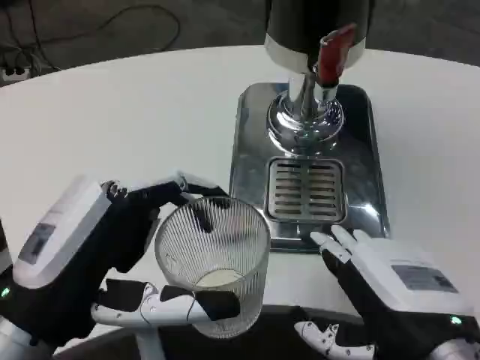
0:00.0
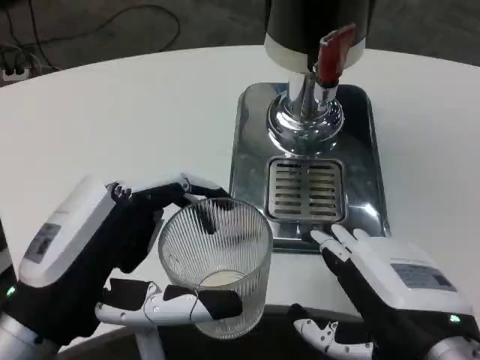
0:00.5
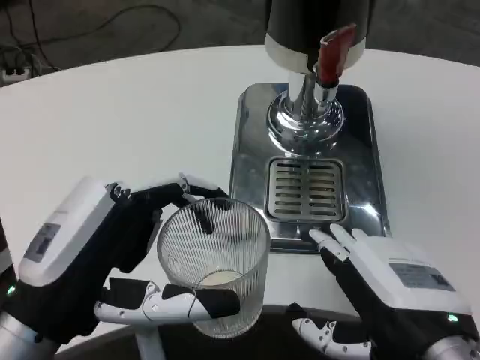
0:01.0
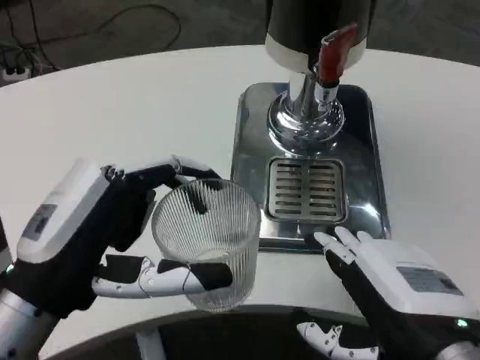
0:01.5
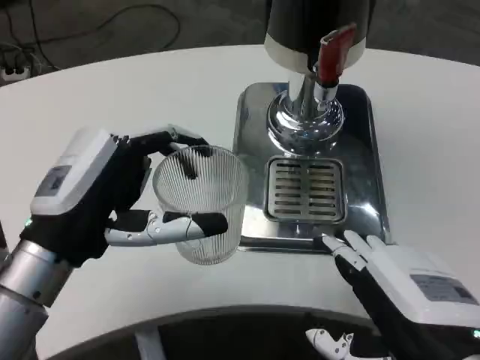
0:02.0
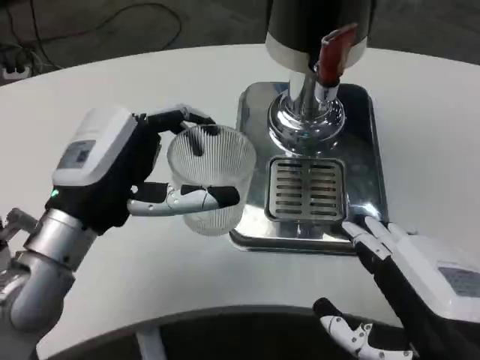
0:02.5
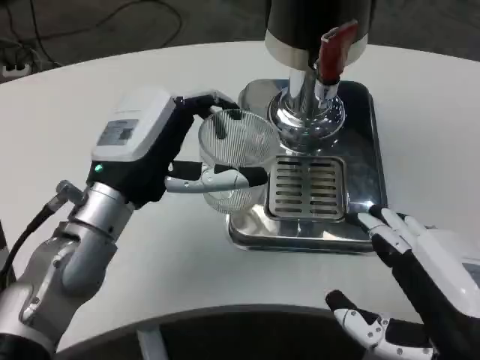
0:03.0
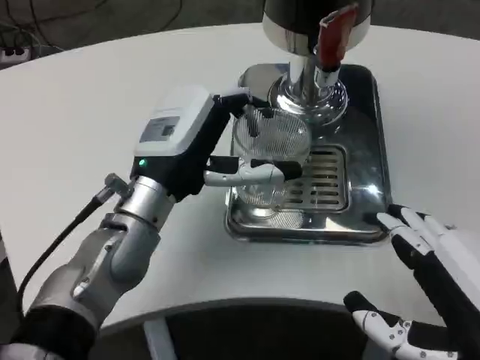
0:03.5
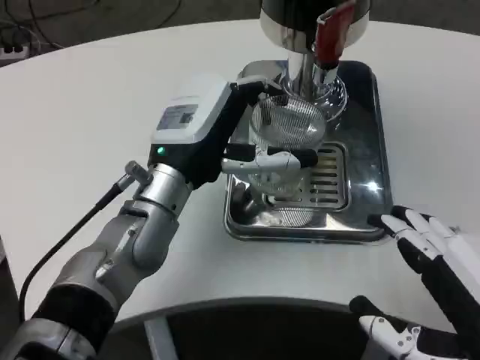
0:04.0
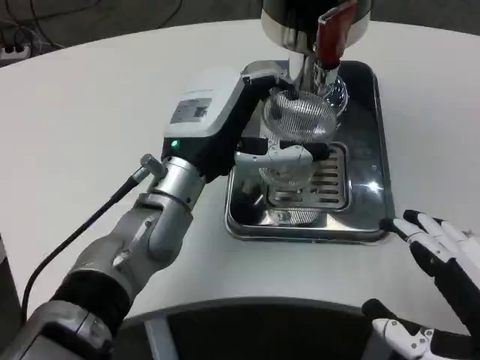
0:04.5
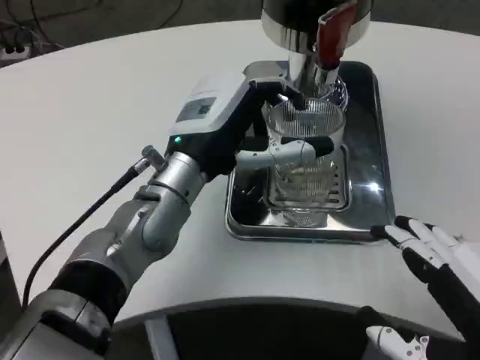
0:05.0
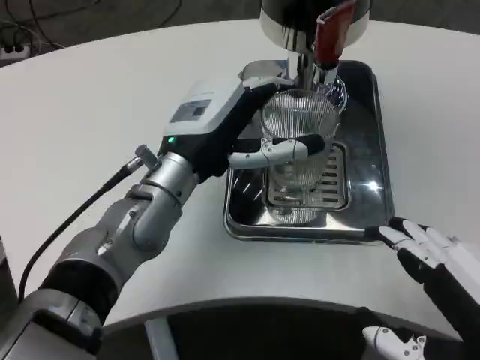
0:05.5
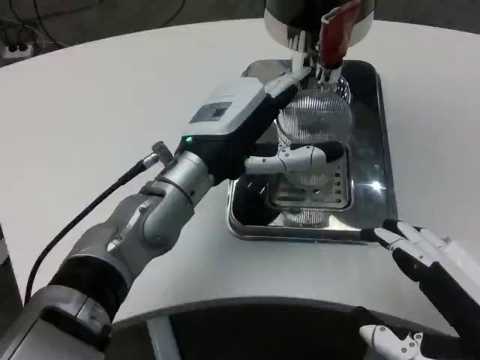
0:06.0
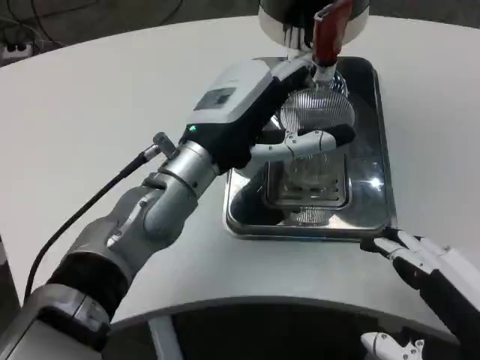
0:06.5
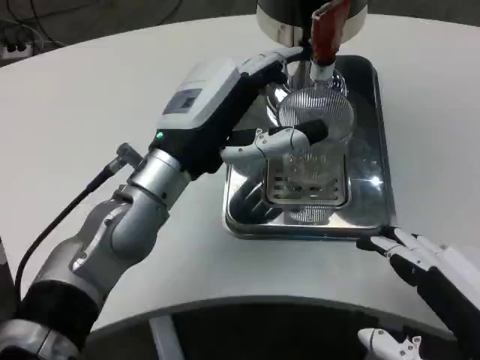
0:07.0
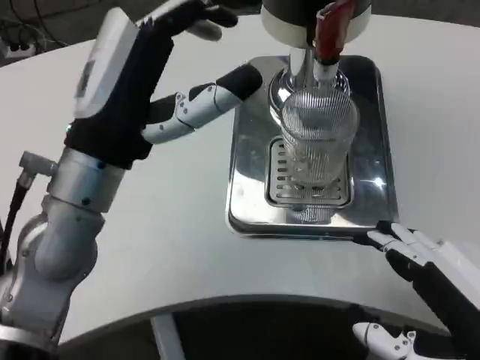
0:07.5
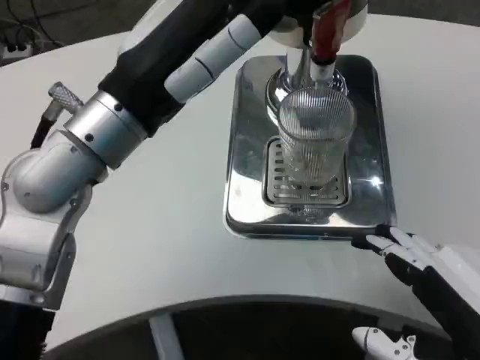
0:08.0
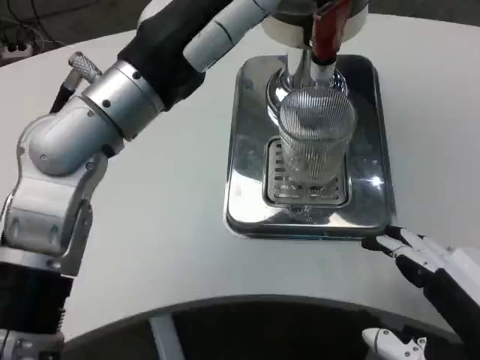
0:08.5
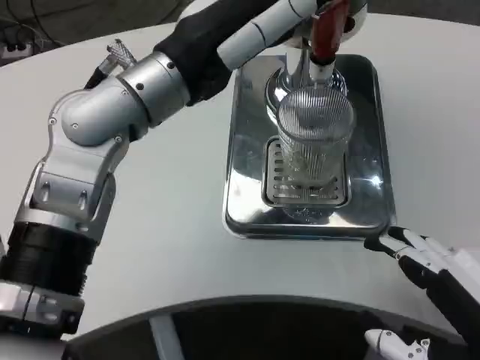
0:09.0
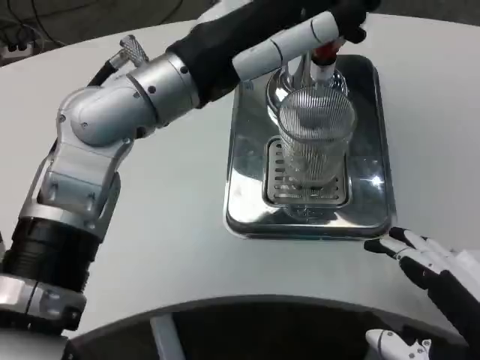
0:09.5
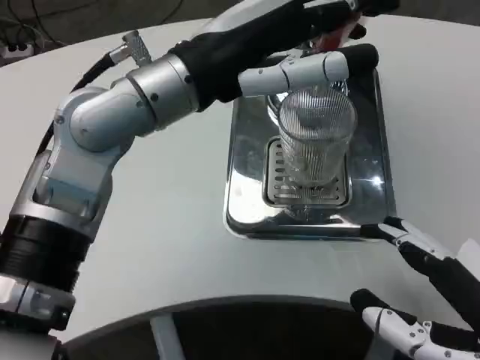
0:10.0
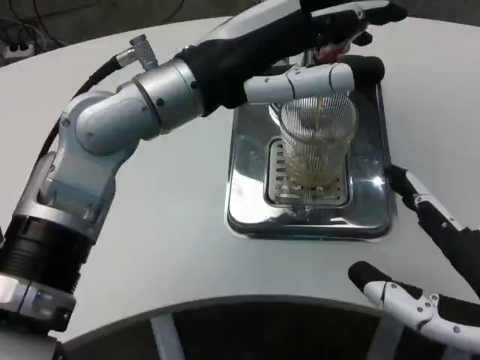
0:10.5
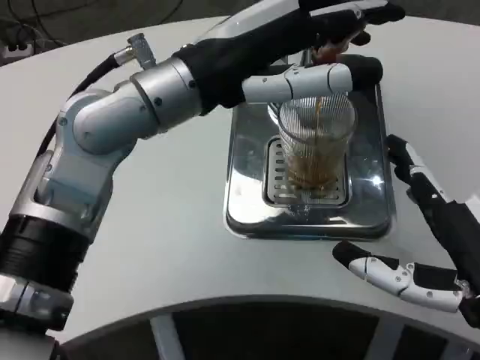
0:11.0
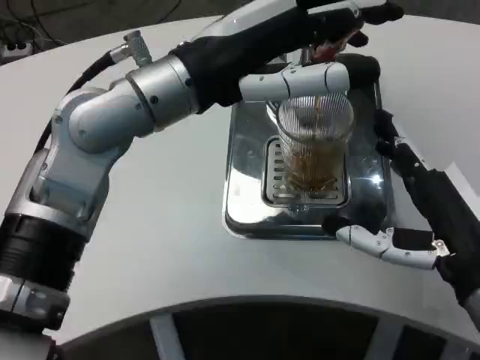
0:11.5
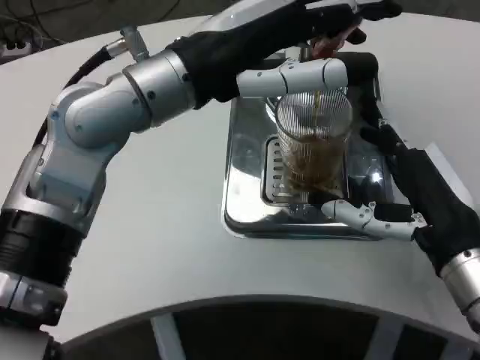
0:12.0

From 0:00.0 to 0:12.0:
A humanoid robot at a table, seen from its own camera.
Task of the whole recording: Grasp the cup under the faucet to collect the drink, then remove the cup.
From 0:00.0 to 0:02.0: The left hand heads forward, covering some 5 cm.
From 0:02.0 to 0:04.0: The left hand moves forward and to the right, approximately 15 cm.
From 0:06.0 to 0:08.0: The left hand heads upward, backward and to the left, covering some 10 cm.
From 0:08.0 to 0:10.0: The left hand ends up roughly 5 cm from where it was.
From 0:10.0 to 0:12.0: The right hand travels forward by some 15 cm.

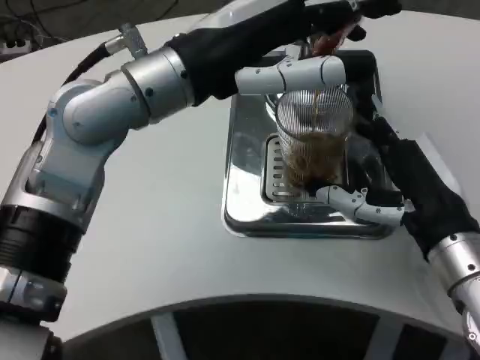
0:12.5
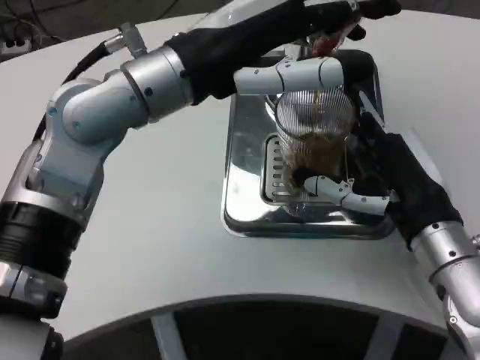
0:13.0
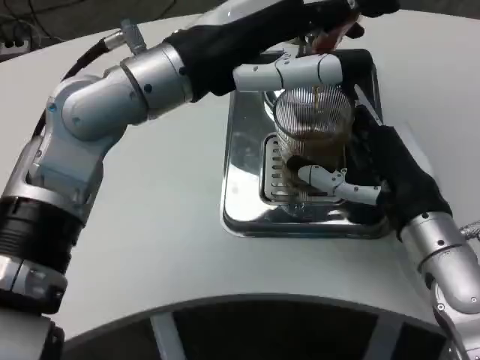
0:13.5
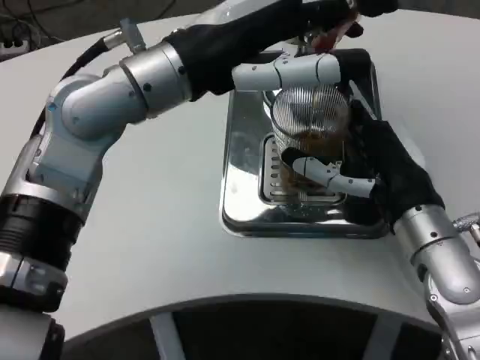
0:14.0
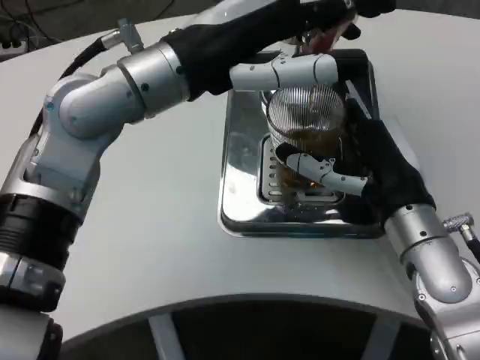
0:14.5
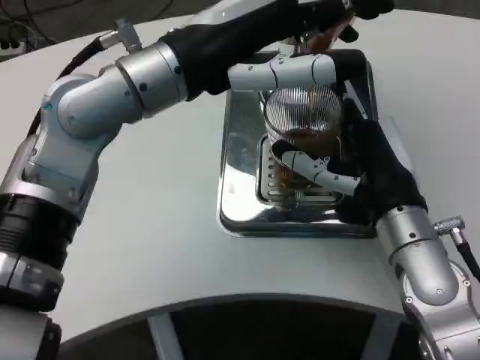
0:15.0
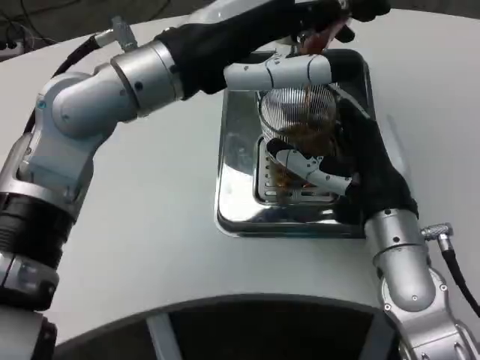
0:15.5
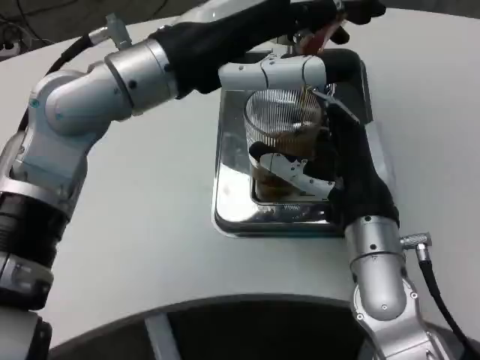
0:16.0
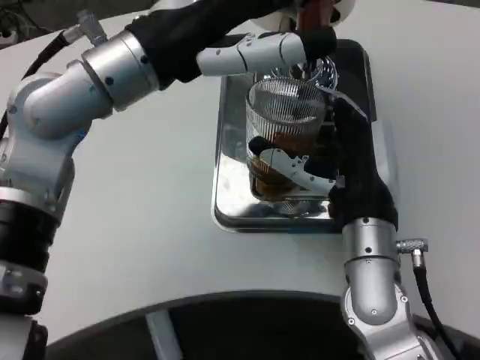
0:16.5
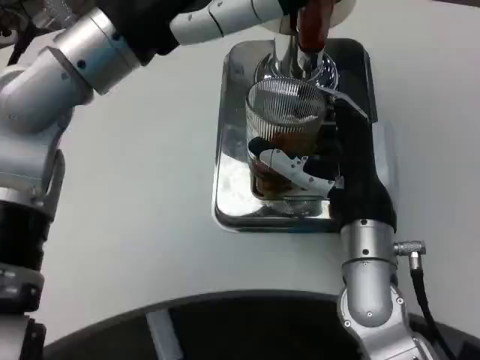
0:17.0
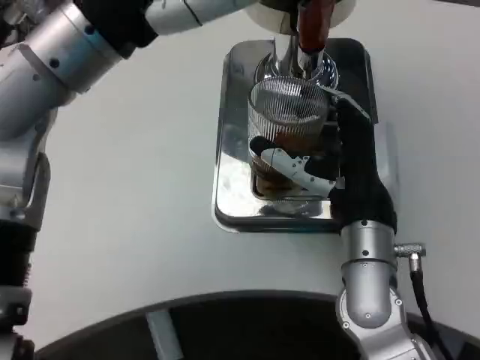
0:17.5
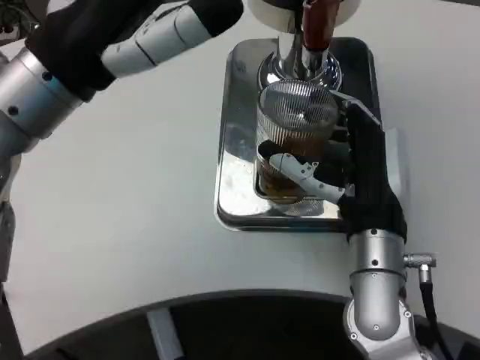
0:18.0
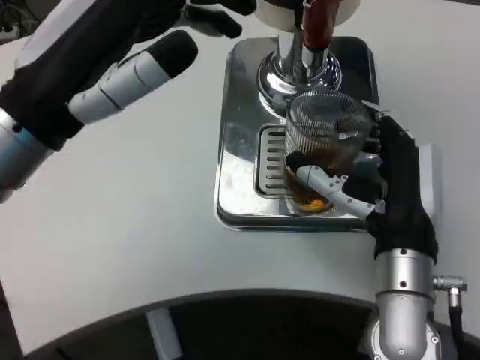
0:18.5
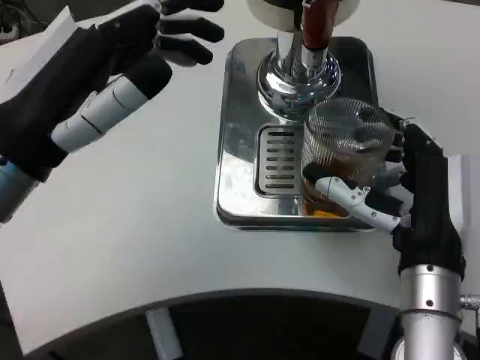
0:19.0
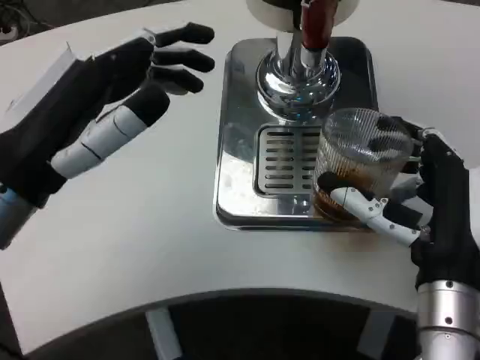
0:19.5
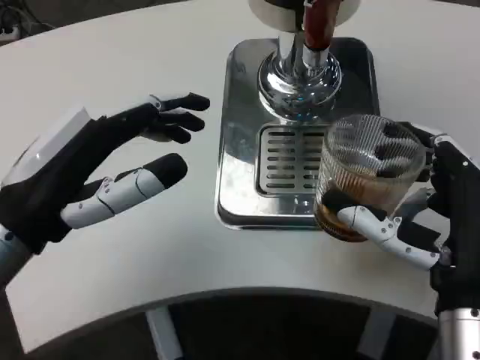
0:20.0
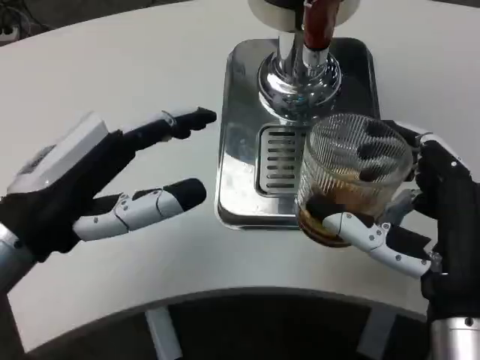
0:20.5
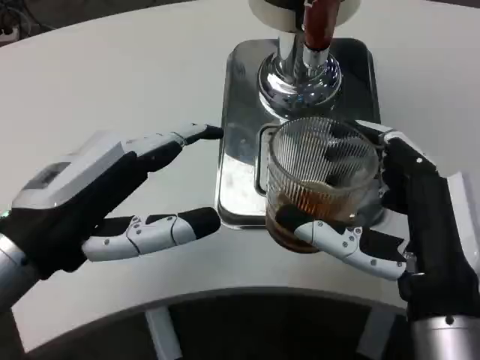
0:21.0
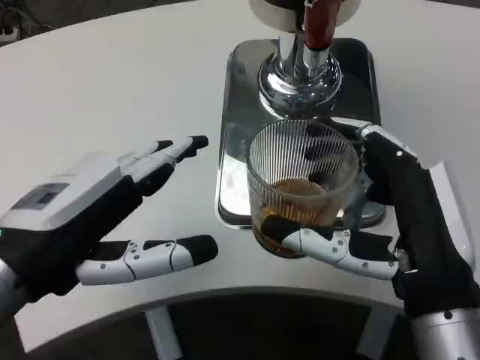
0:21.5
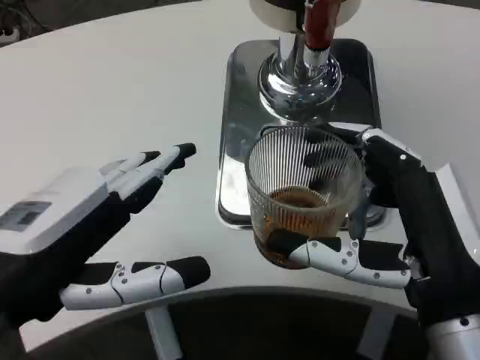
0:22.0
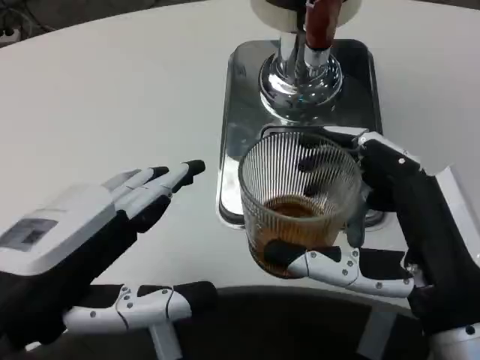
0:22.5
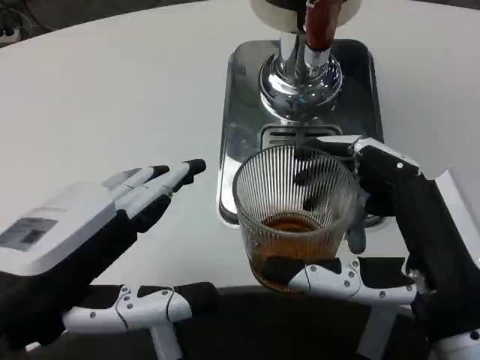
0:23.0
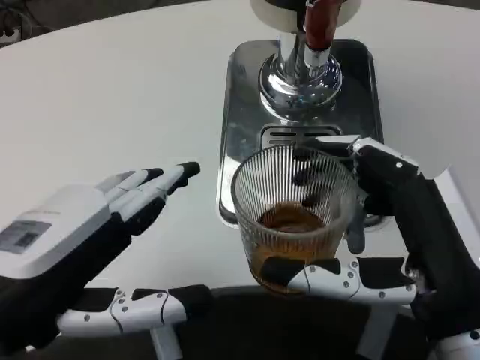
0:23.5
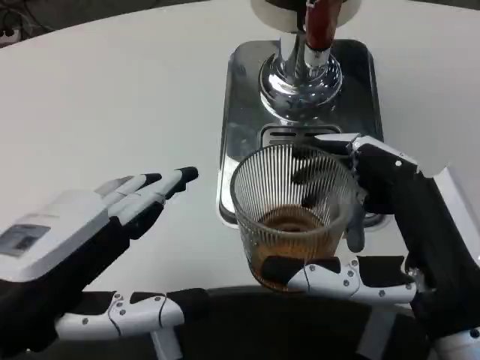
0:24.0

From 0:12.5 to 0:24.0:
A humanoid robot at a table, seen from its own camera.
Task of the whole recording: Grasp the cup under the faucet to collect the drink, then remove the cup.
From 0:14.5 to 0:16.5: The right hand is displaced to the left by approximately 5 cm.
From 0:16.5 to 0:18.5: The left hand heads backward and to the left, covering about 10 cm.
From 0:18.5 to 0:20.0: The right hand is displaced backward by some 5 cm. The left hand shifts roughly 5 cm downward.
From 0:20.0 to 0:22.0: The left hand goes some 5 cm backward.

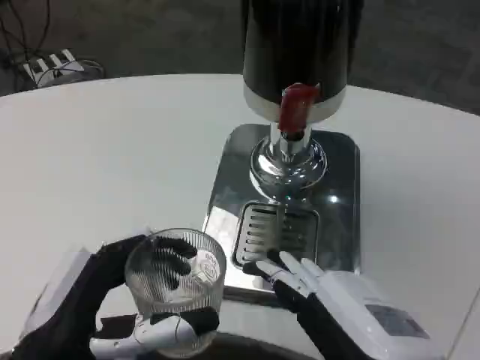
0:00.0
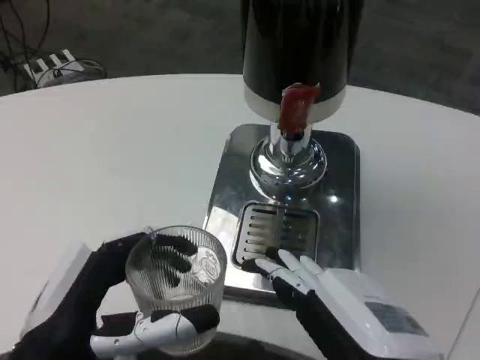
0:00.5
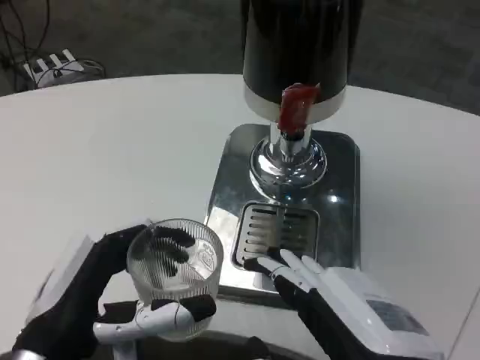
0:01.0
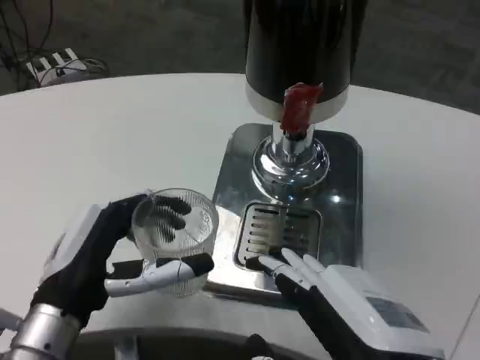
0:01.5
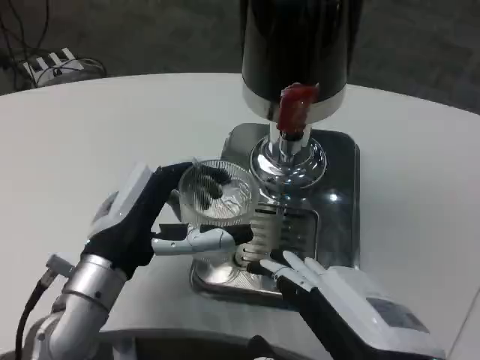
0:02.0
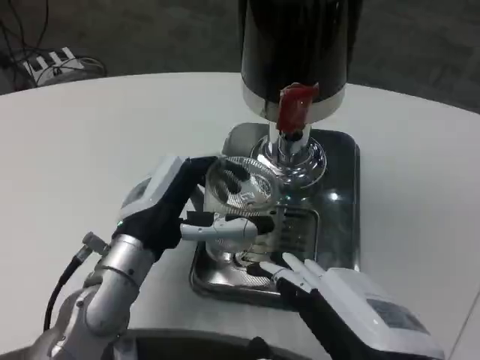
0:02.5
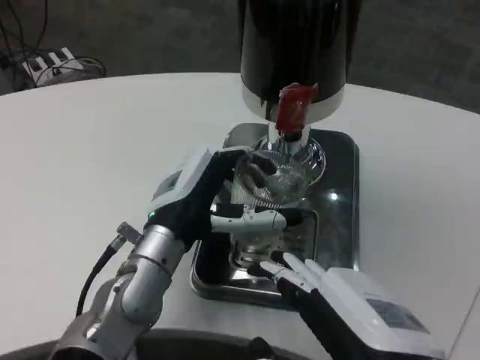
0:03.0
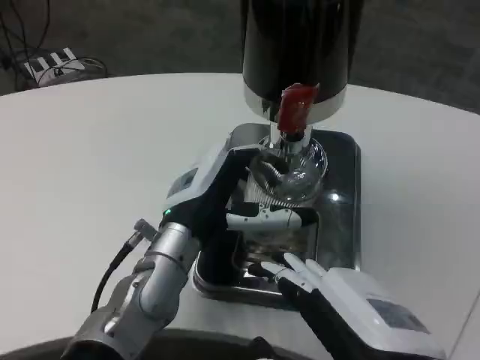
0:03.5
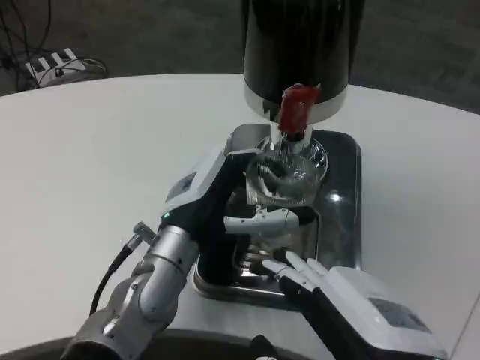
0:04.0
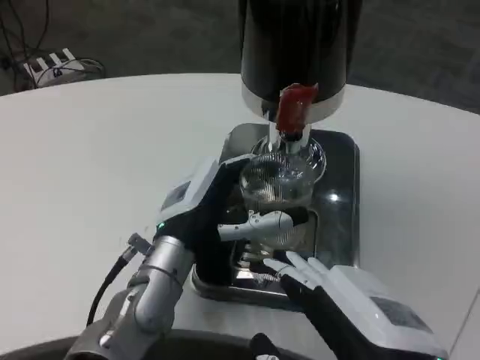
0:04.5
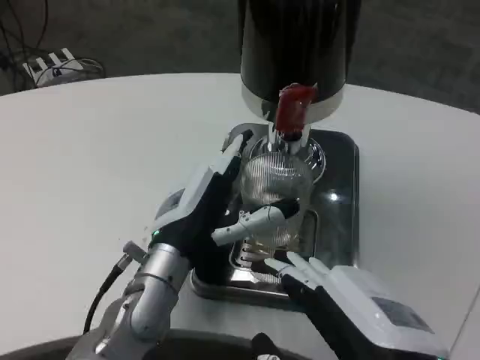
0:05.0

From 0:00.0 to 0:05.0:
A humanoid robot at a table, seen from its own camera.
Task of the whole recording: Grasp the cup under the faucet to collect the drink, then remove the cup.
From 0:00.0 to 0:02.5: The left hand goes about 15 cm forward.
From 0:02.5 to 0:05.0: The hands stay close to where they were, moving slightly.
